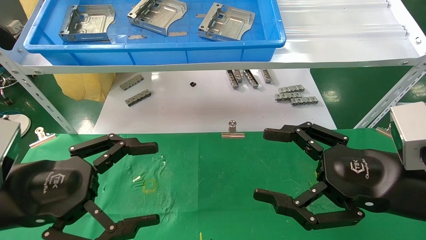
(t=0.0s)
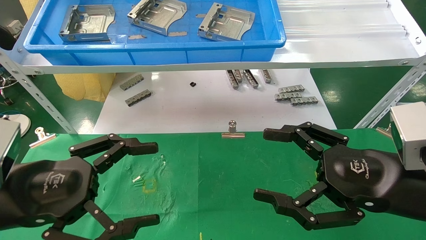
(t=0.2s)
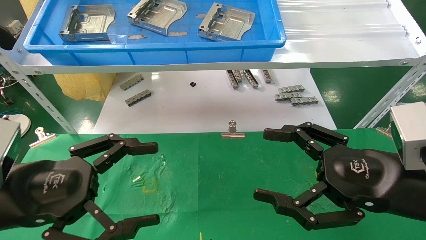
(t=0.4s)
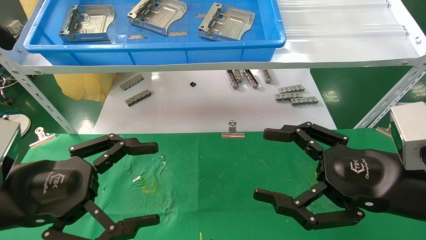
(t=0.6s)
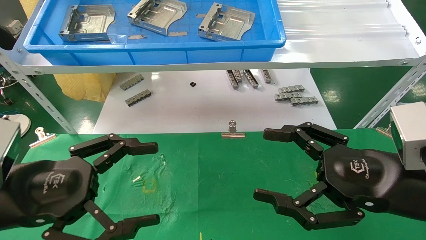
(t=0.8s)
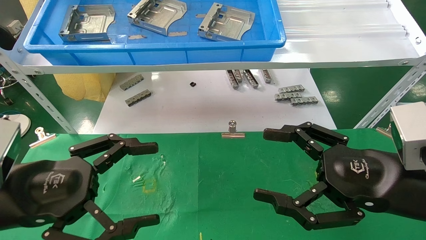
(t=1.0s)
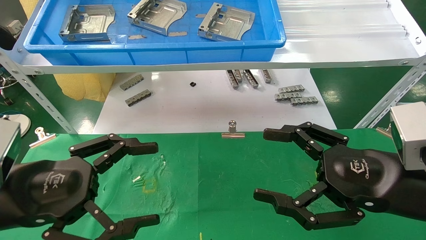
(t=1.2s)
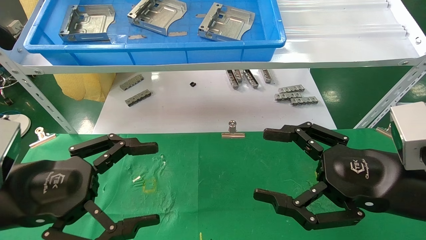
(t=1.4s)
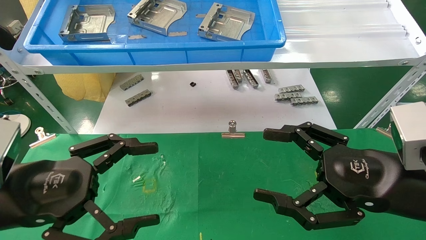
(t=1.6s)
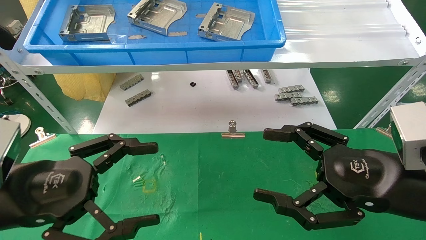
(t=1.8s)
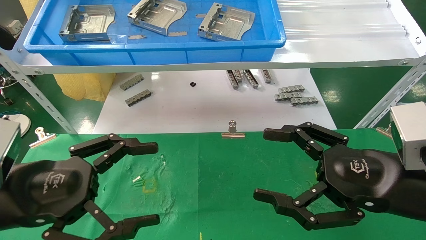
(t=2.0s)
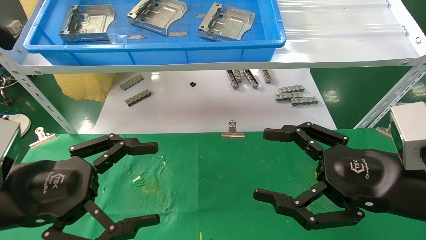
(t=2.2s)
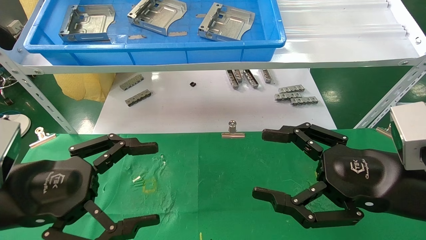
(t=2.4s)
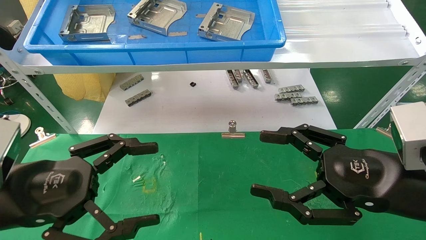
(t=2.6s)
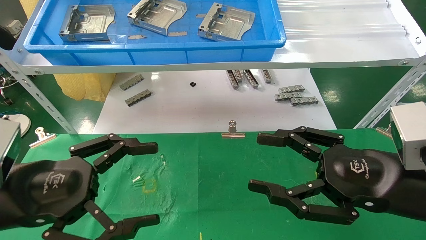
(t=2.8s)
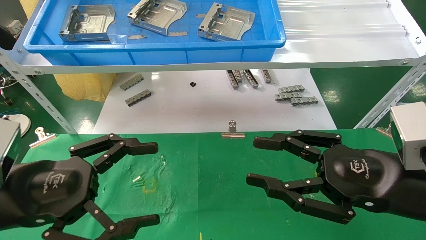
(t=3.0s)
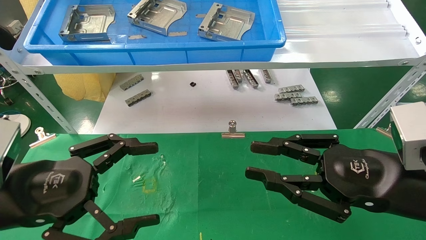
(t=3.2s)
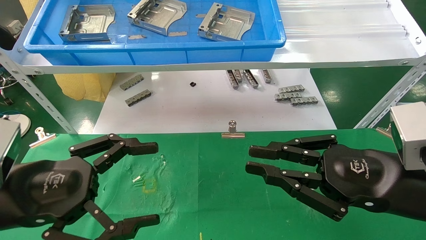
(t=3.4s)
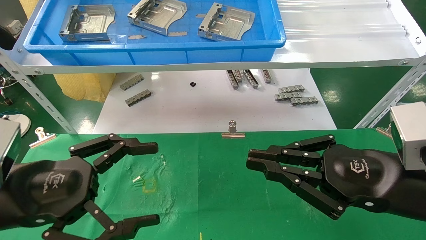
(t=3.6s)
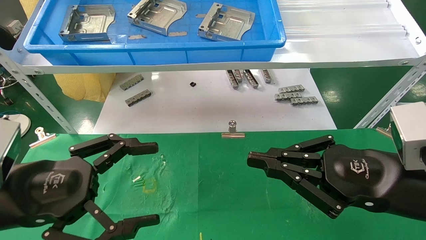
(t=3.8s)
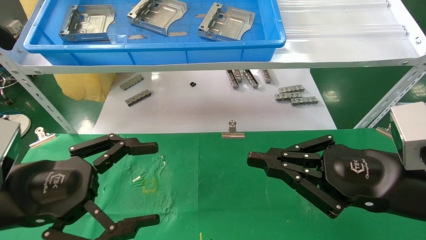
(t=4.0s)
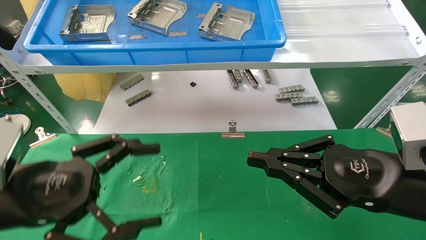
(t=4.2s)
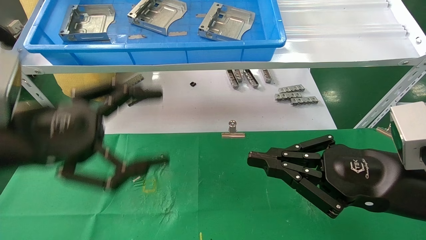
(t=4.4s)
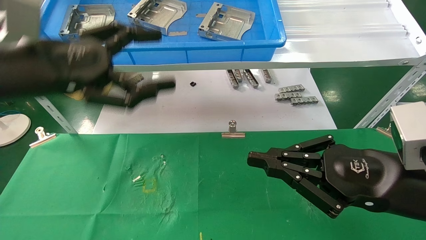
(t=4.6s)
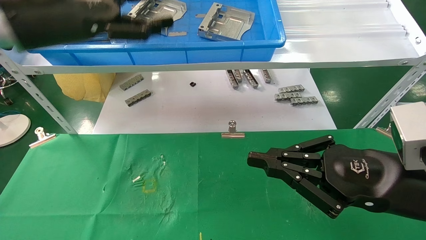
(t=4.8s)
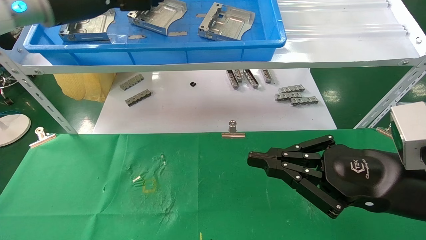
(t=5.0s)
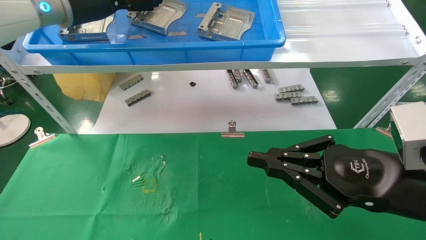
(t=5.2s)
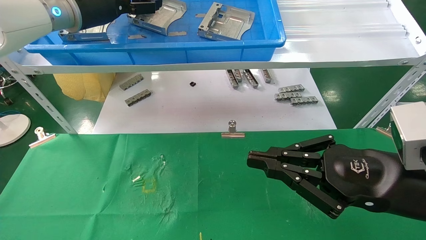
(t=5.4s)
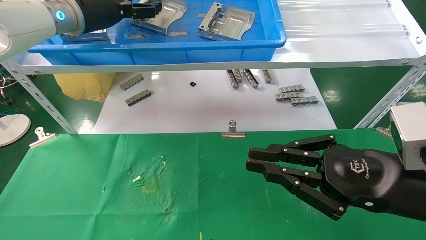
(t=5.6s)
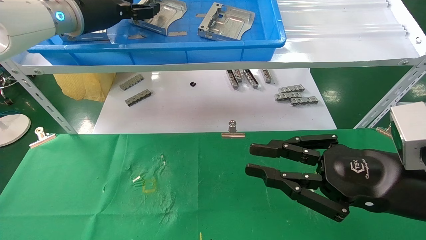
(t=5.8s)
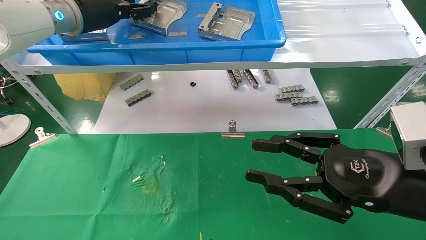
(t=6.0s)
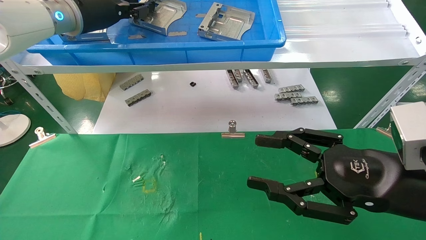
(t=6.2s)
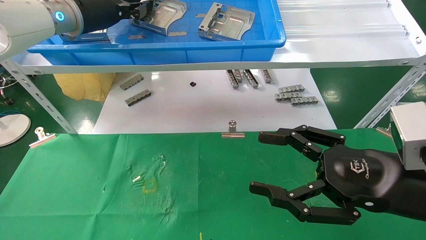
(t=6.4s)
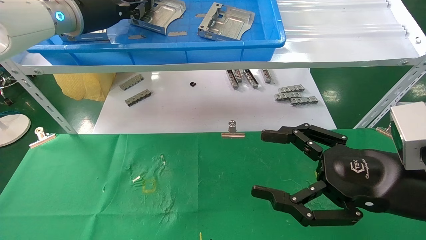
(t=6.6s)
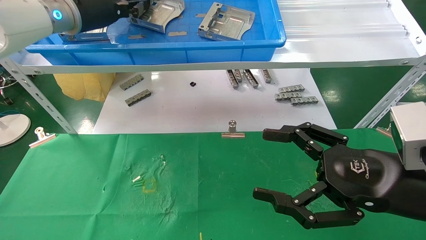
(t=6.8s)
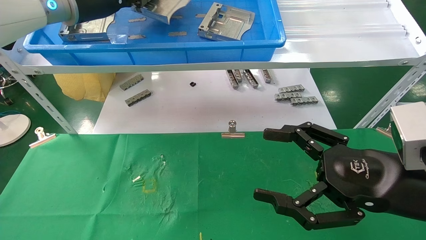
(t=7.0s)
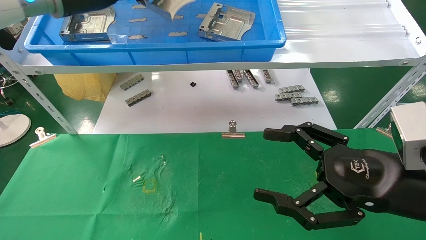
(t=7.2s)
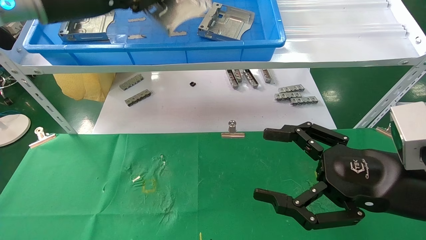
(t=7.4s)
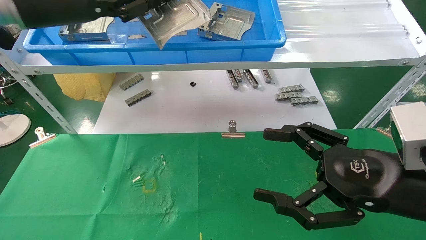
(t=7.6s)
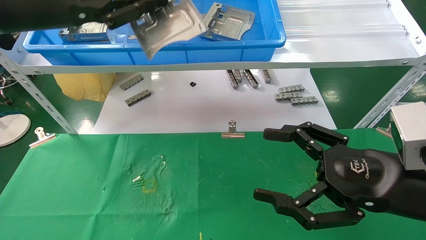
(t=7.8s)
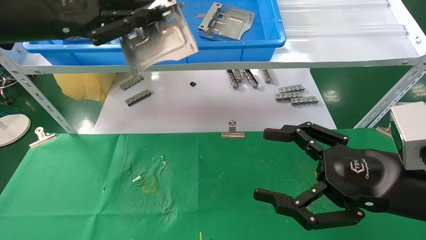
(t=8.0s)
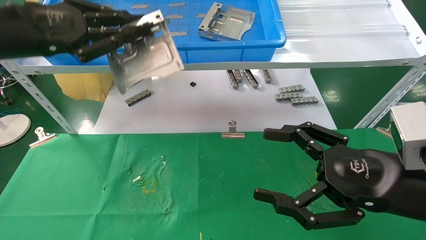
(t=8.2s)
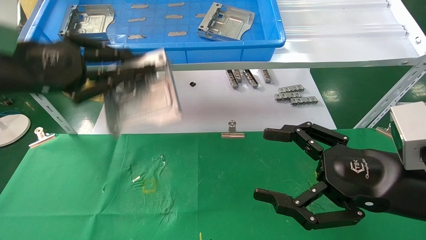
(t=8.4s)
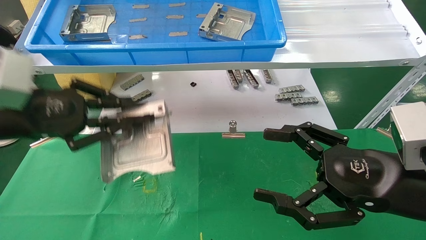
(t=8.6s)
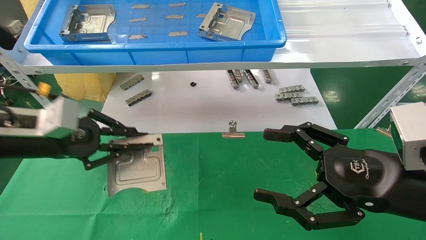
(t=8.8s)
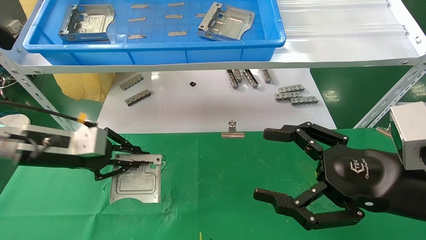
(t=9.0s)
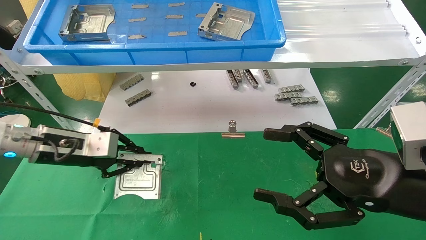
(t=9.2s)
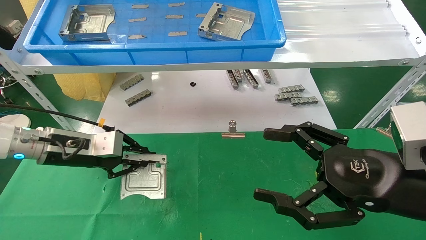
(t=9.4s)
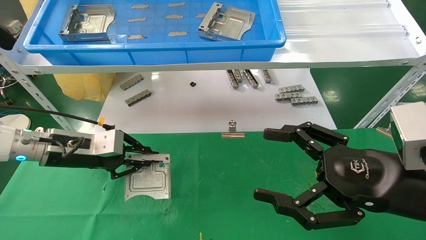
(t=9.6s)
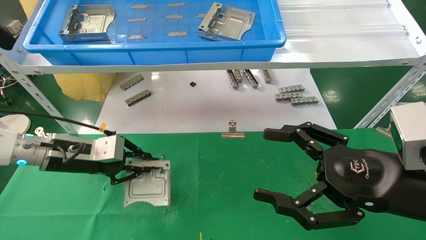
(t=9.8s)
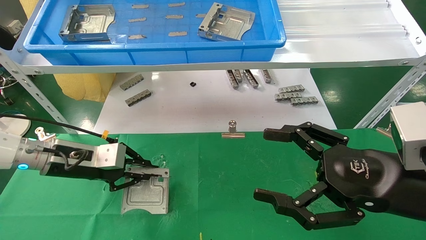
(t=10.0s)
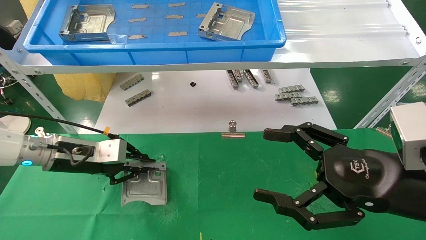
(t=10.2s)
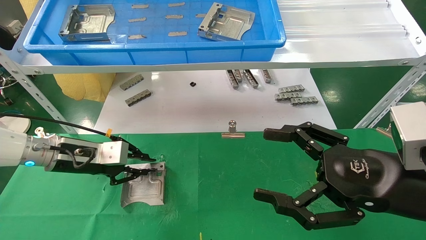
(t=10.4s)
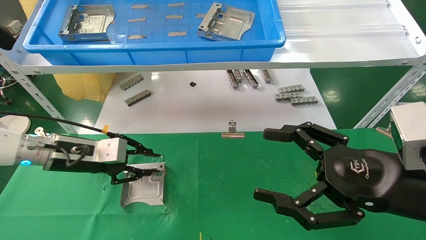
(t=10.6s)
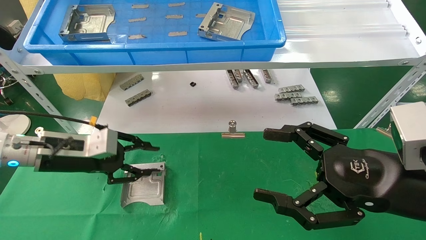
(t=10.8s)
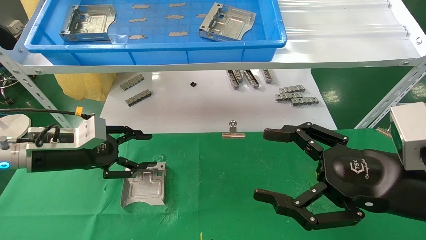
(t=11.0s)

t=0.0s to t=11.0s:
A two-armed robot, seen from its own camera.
Task of the whole recording: use the mechanical arm to pick up the parts and place them on the table.
Step, t=4.4s to t=6.6s: Pick up the hard drive bracket from the feeding area.
Step, t=6.8s to t=10.8s: Place the hard drive bracket into the box.
t=0.0s to t=1.6s: Neither gripper changes place.
t=1.6s to t=3.2s: The right gripper closes its fingers.
t=3.2s to t=4.8s: The left gripper goes about 25 cm upward and forward, while the right gripper closes up.
t=4.8s to t=6.2s: The right gripper opens its fingers. Meanwhile the left gripper goes some 10 cm forward, and closes its fingers.
t=6.2s to t=7.8s: The left gripper goes some 10 cm backward, and closes up. Meanwhile the right gripper opens.
t=7.8s to t=9.4s: The left gripper goes some 25 cm downward.
t=9.4s to t=11.0s: The left gripper opens up.

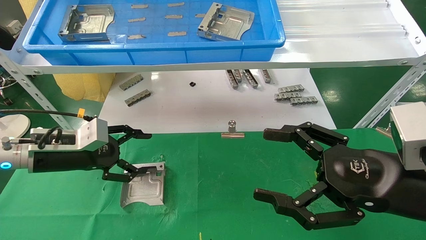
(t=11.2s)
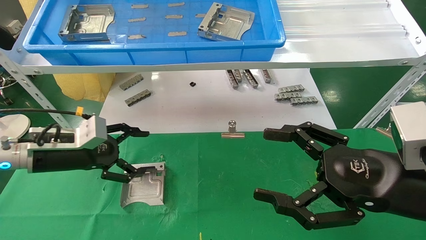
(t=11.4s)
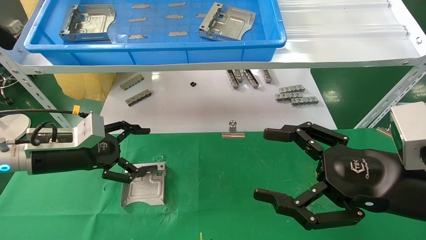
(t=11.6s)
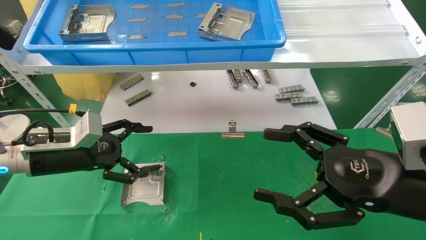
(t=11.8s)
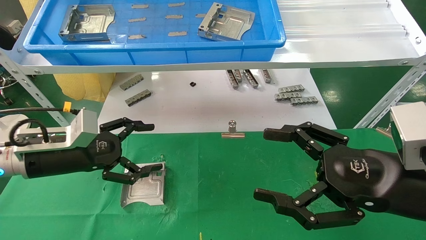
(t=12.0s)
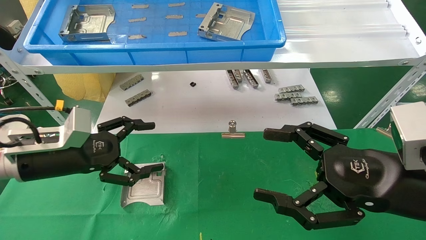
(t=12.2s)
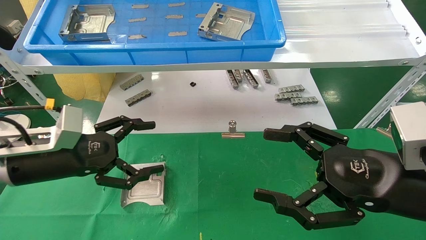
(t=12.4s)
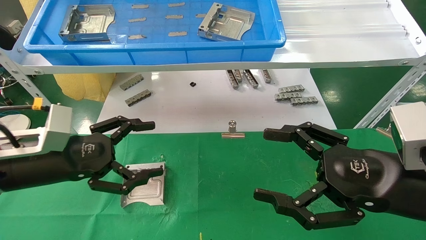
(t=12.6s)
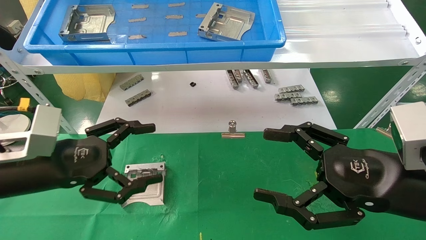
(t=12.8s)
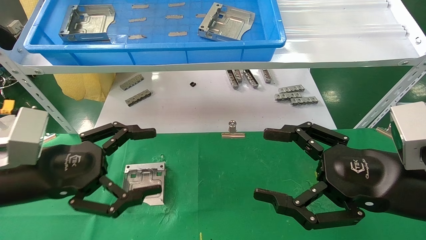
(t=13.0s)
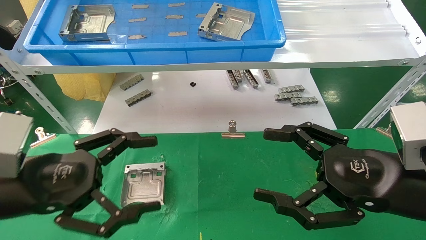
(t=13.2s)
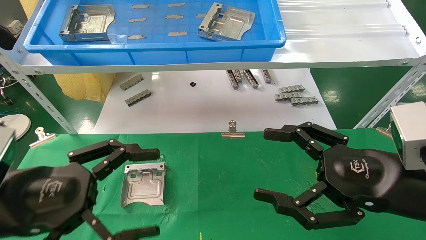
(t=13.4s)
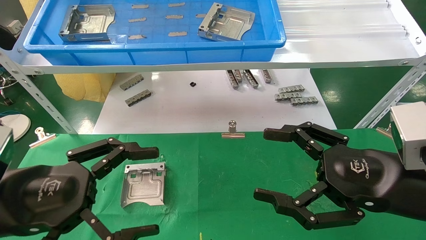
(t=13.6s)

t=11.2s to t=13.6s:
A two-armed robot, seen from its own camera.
Task of the whole recording: use the mechanical arm to pick up the parts and place them on the table.
t=11.2s to t=12.4s: The left gripper goes some 5 cm backward, and opens.
t=12.4s to t=13.6s: The left gripper travels backward by some 10 cm.

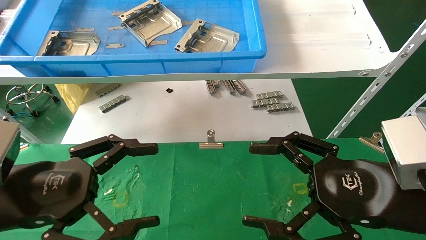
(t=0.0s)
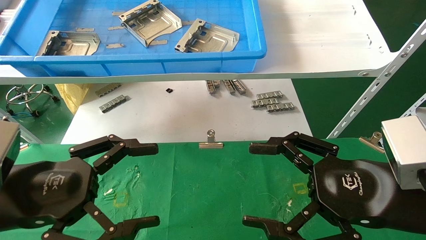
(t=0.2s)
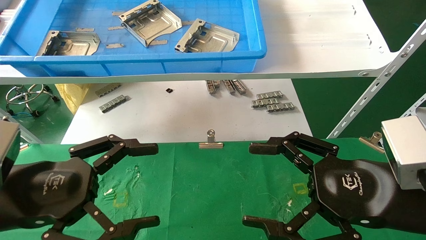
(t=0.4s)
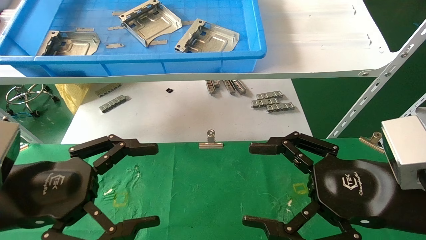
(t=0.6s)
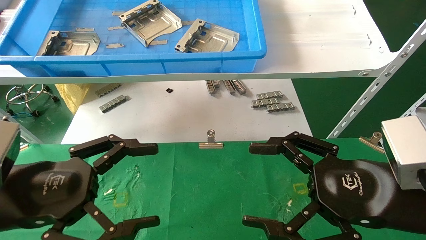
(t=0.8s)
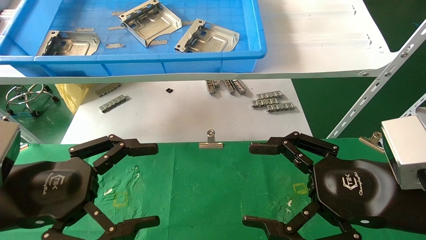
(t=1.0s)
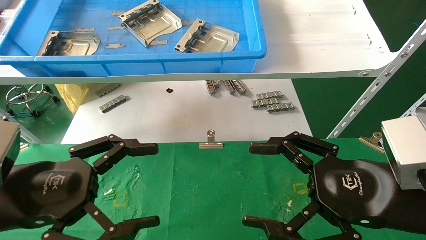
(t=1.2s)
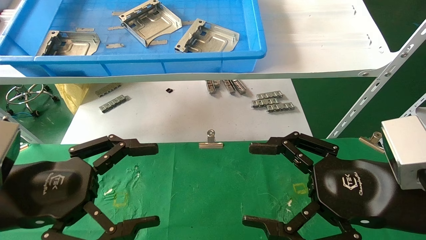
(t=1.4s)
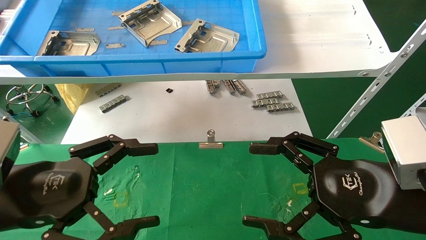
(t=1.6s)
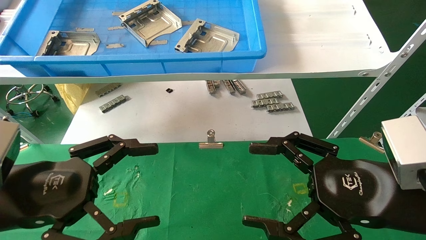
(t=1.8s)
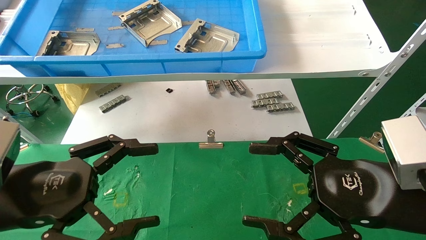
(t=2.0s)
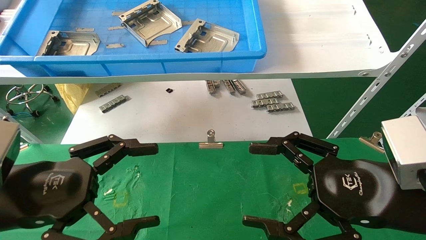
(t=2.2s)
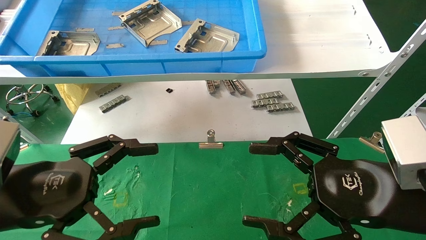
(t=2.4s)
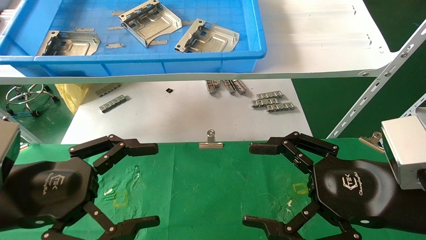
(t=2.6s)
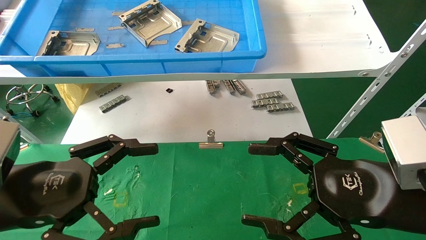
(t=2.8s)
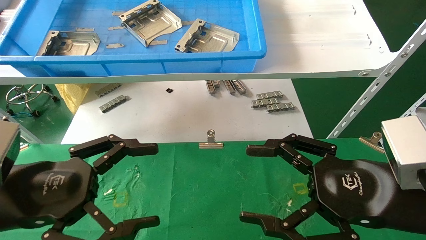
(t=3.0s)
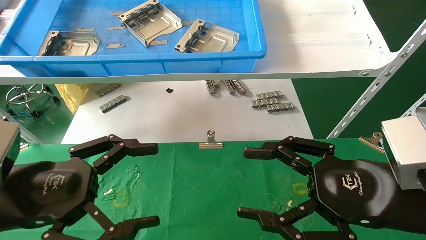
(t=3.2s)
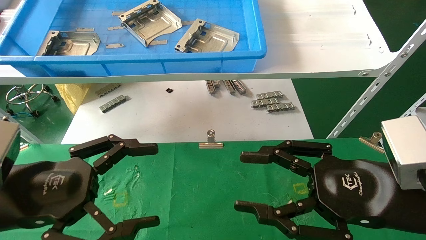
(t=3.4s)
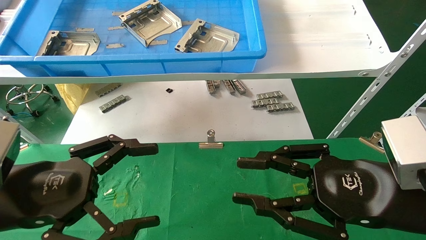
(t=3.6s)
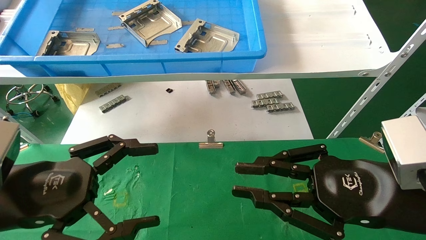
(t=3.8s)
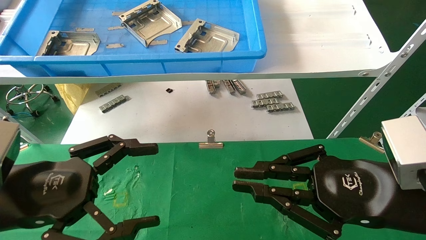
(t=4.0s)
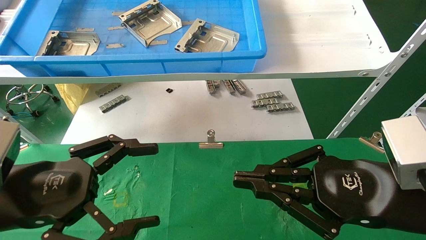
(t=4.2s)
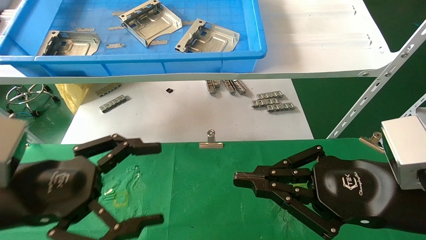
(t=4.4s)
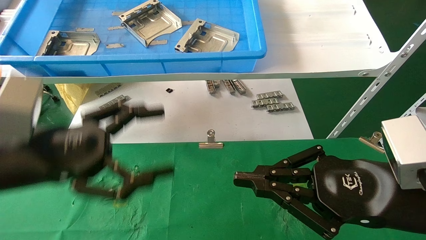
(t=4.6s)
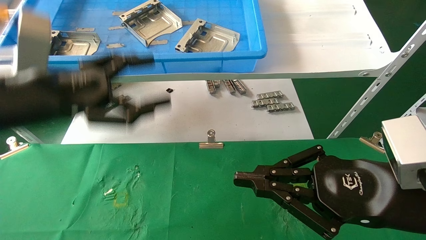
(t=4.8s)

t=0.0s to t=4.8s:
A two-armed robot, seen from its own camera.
Task of the whole recording: use the mechanical arm to pick up the parts and place them on the table.
t=0.0s to t=3.2s: The two grippers keep their place.
t=3.2s to t=4.8s: The right gripper closes its fingers, while the left gripper goes approximately 15 cm upward and forward.
